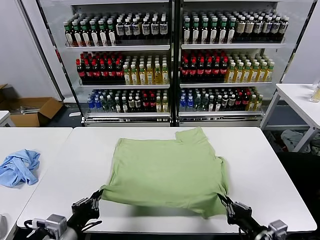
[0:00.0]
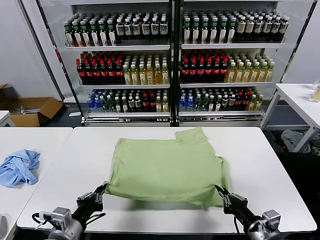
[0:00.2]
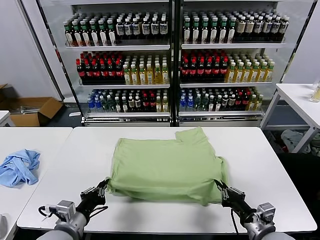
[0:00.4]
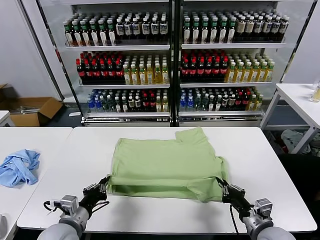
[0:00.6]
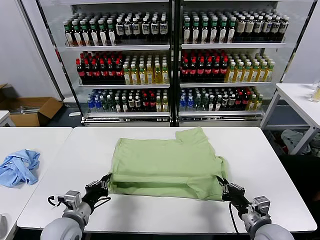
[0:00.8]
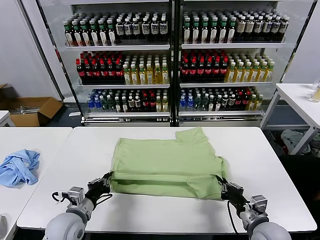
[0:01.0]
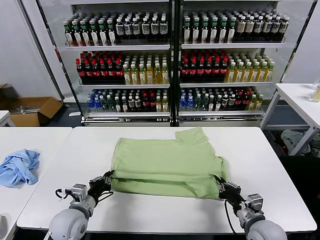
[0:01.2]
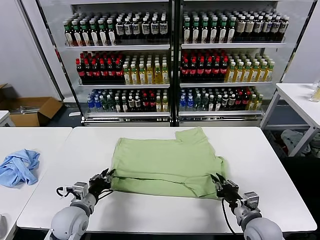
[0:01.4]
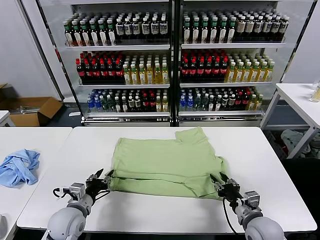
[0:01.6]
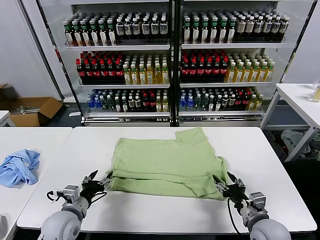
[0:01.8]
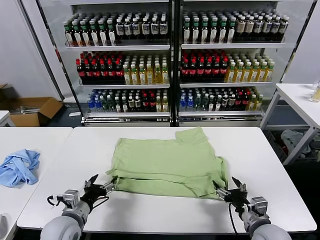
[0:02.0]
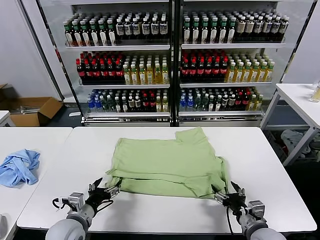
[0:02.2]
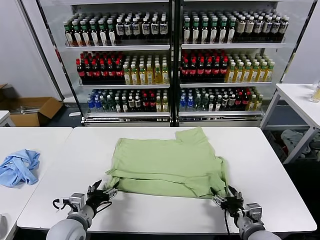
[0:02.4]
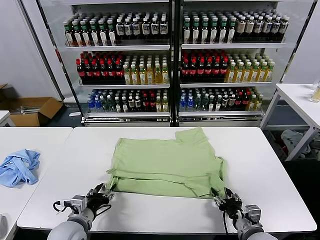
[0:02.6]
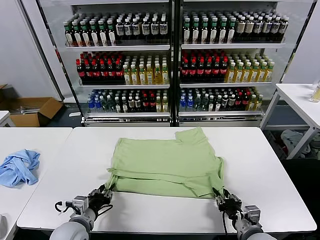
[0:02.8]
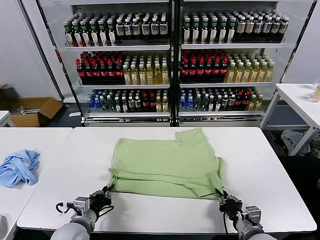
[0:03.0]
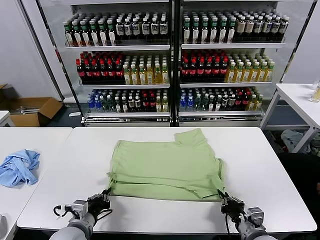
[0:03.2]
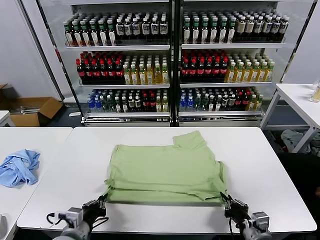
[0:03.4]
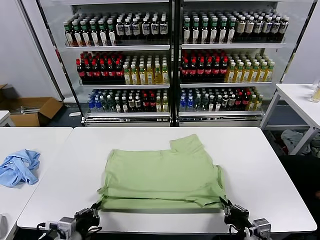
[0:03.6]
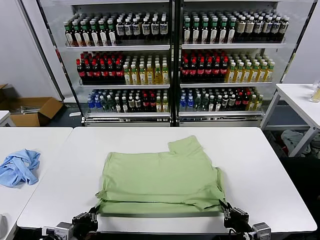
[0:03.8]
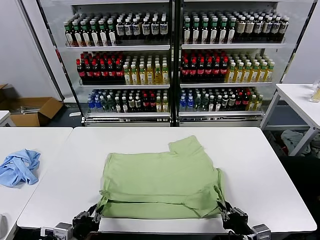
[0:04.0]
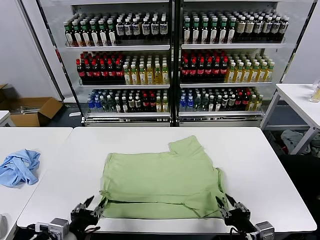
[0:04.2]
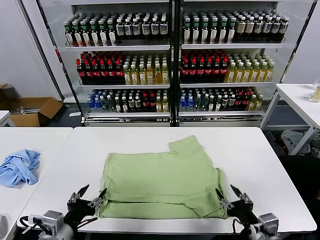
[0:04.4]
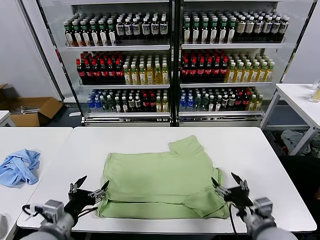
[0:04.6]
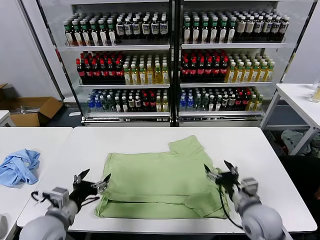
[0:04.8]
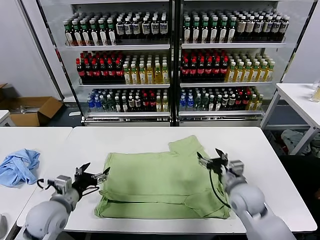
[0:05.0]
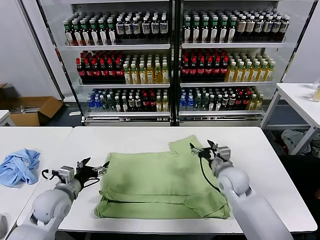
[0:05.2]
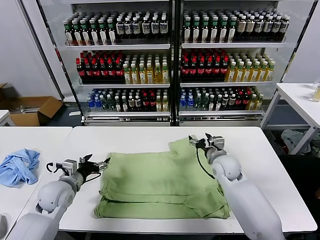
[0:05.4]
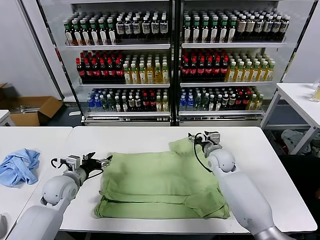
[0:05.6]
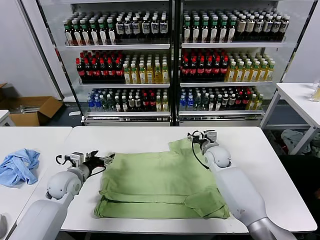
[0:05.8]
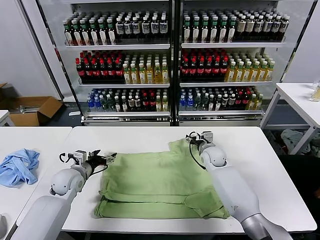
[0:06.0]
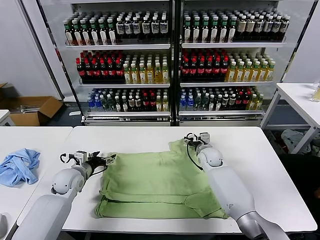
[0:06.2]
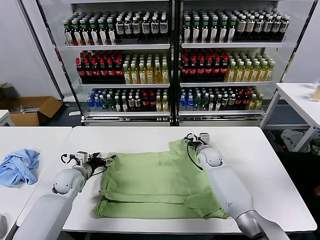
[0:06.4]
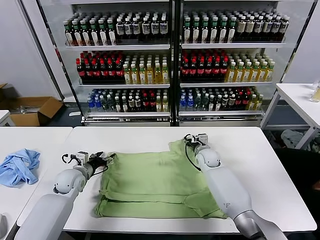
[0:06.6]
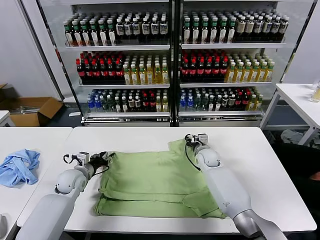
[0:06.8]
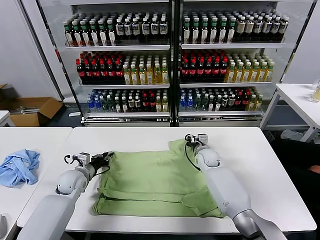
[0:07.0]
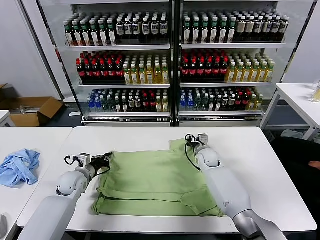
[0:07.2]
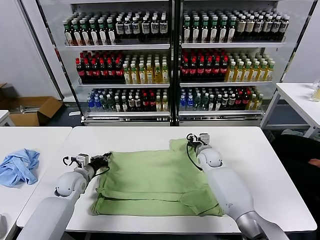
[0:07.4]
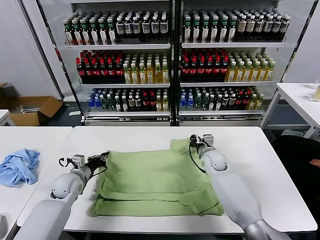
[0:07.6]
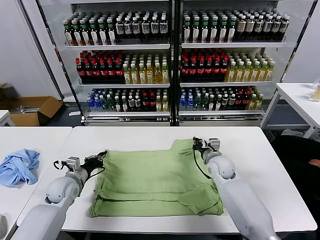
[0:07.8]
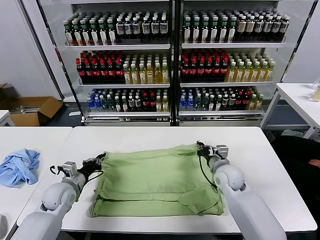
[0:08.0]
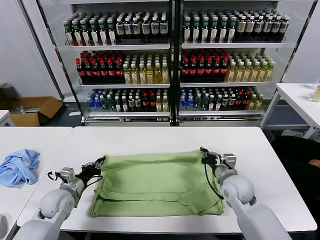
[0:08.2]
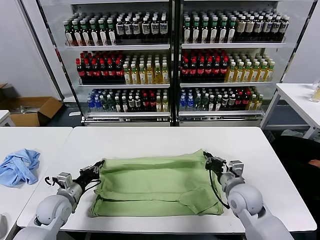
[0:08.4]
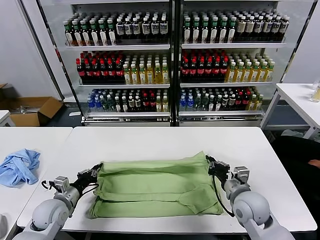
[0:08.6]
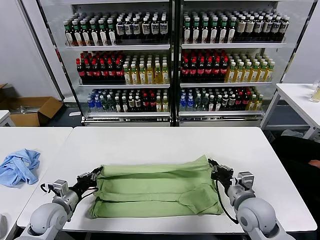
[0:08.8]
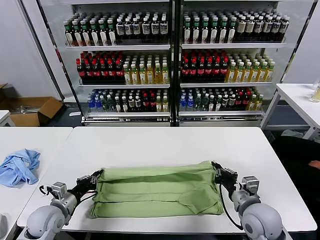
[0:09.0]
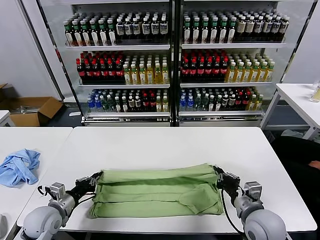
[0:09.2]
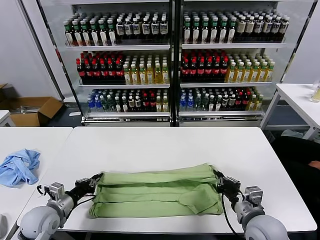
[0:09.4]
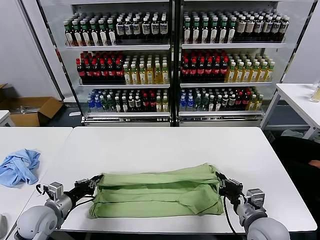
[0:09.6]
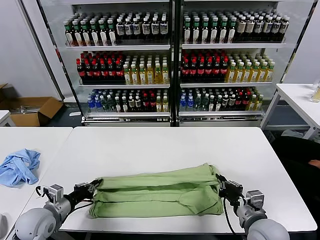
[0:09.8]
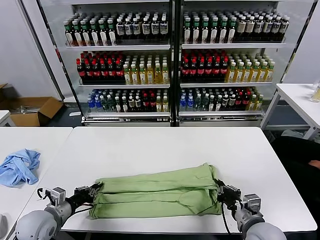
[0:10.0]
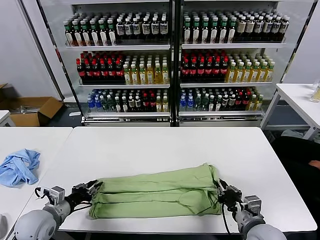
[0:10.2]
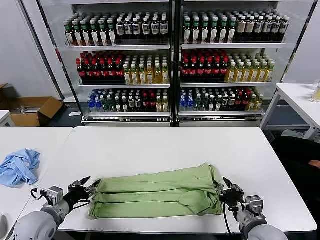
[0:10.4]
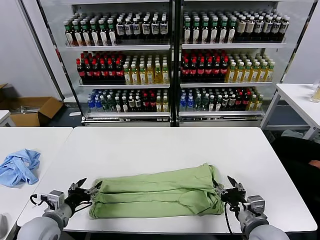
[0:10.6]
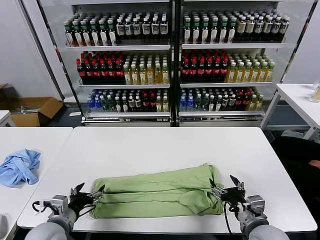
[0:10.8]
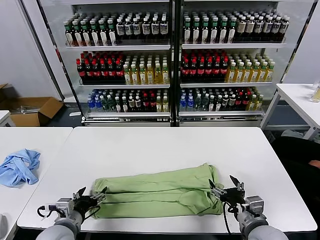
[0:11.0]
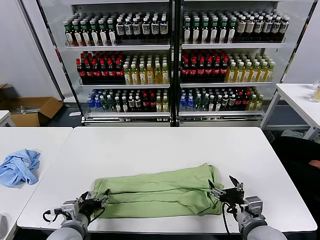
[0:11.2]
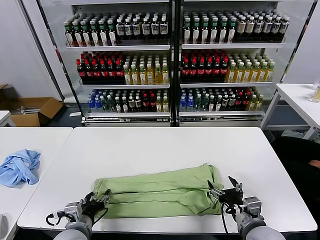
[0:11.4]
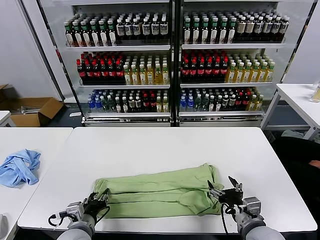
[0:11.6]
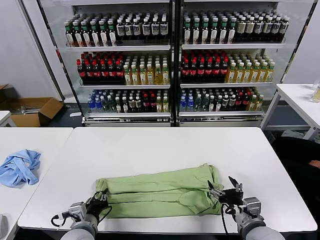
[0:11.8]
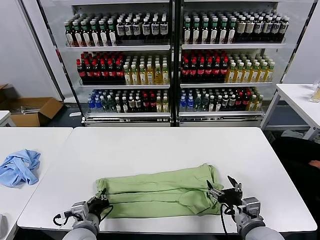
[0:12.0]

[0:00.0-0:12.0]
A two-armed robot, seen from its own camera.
Task of the whole recording: fold and organize the clothes.
Step, 0:00.0 to 0:01.6: use both grippers to drag the lower edge of the fabric forward and fold it over the upper edge.
Step, 0:01.8 to 0:04.2: Drag the clothes downward with both gripper.
Step, 0:04.4 to 0:07.2: use both grippers simultaneously to clamp the upper edge of the clothing fabric.
Step, 0:07.4 to 0:10.4: use both grippers to drag the upper edge of the fabric backward and fold it over the lower edge.
Step, 0:10.6 to 0:12.0: use the left gripper to clamp the left edge of the fabric.
0:00.0 to 0:01.6: The left gripper travels forward and downward by approximately 15 cm, and opens its fingers; the right gripper heads forward, covering some 10 cm, and opens.
0:01.6 to 0:03.0: The right gripper closes up, while the left gripper changes place by approximately 5 cm, and opens, then closes again.
0:03.0 to 0:04.4: The right gripper heads upward, covering about 10 cm, and opens its fingers, while the left gripper shifts some 15 cm upward and backward, and opens.
0:04.4 to 0:06.0: The two grippers go about 30 cm forward.
0:06.0 to 0:07.6: The left gripper closes up; the right gripper closes.
0:07.6 to 0:09.0: The right gripper moves backward, some 25 cm; the left gripper heads backward, covering some 10 cm.
0:09.0 to 0:10.4: The right gripper opens. The left gripper opens its fingers.
0:10.4 to 0:12.0: The left gripper is displaced to the right by roughly 15 cm, and closes its fingers; the right gripper opens.

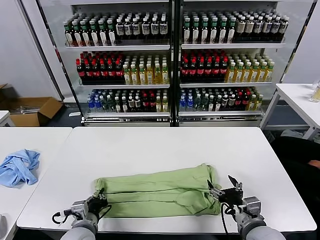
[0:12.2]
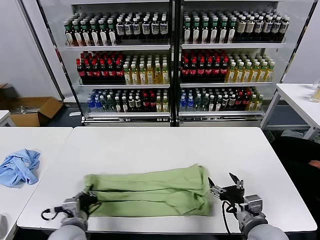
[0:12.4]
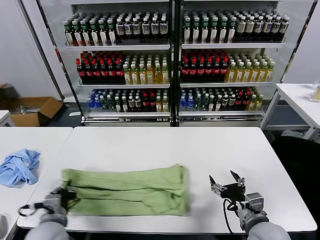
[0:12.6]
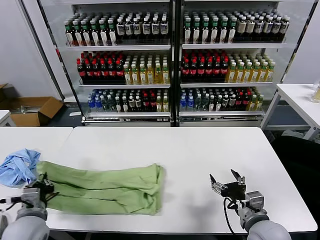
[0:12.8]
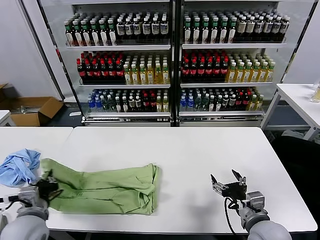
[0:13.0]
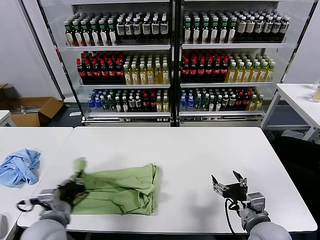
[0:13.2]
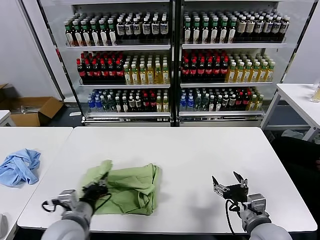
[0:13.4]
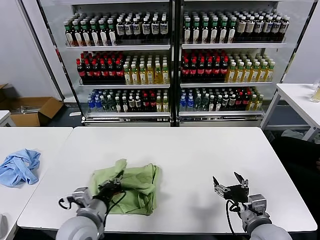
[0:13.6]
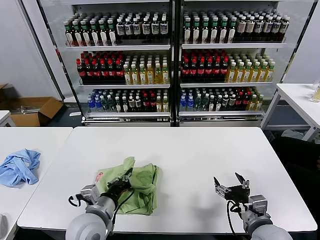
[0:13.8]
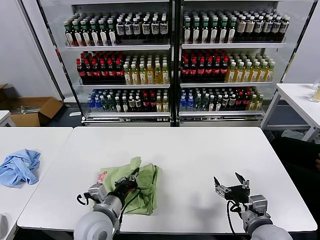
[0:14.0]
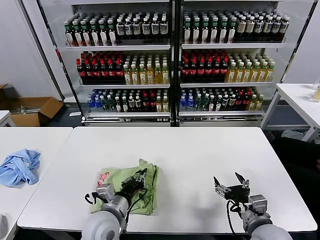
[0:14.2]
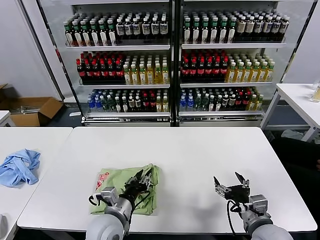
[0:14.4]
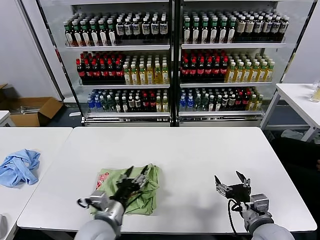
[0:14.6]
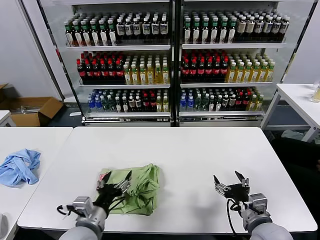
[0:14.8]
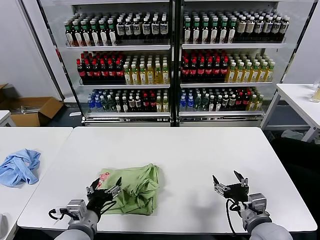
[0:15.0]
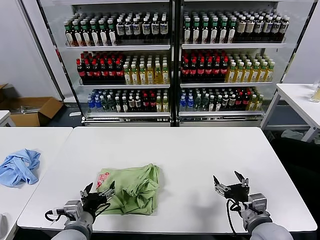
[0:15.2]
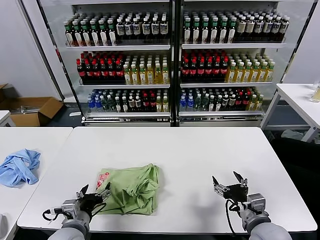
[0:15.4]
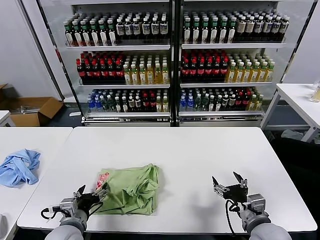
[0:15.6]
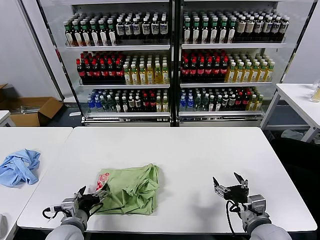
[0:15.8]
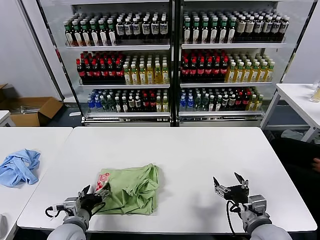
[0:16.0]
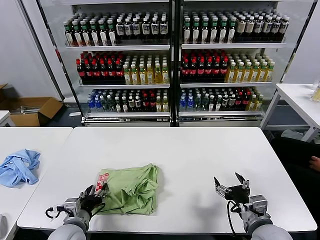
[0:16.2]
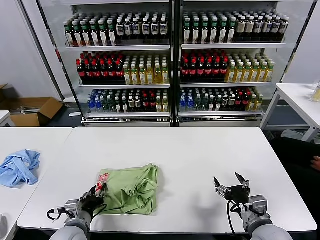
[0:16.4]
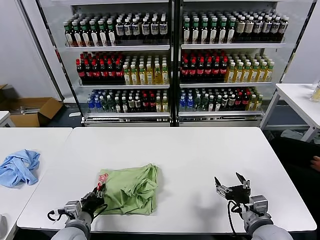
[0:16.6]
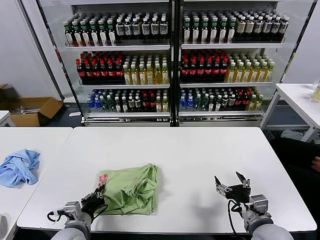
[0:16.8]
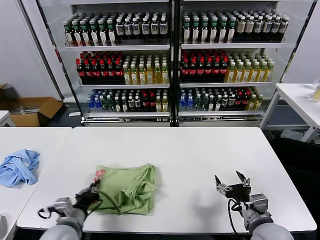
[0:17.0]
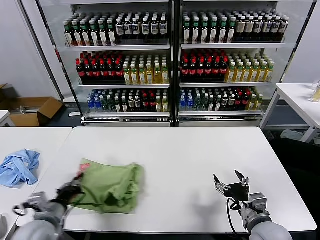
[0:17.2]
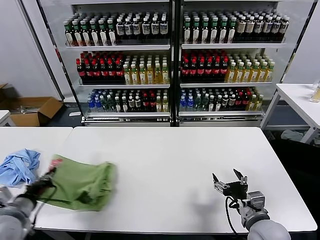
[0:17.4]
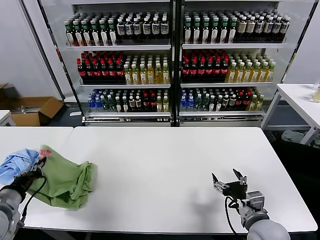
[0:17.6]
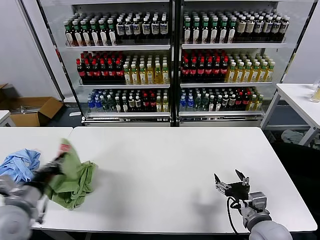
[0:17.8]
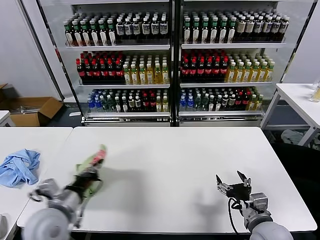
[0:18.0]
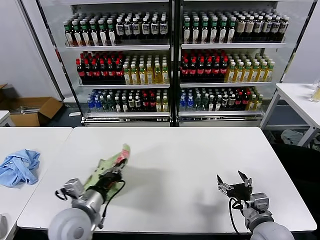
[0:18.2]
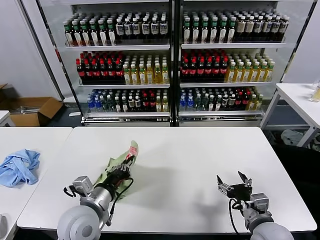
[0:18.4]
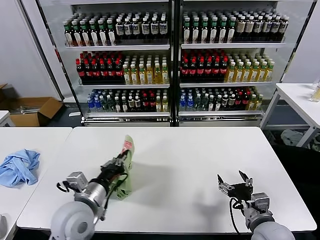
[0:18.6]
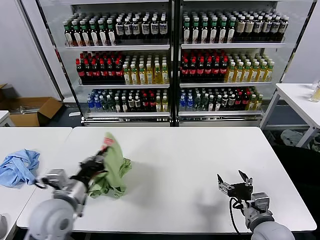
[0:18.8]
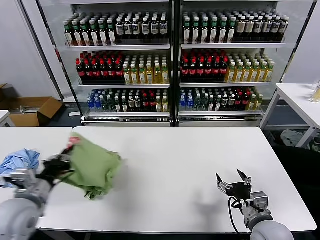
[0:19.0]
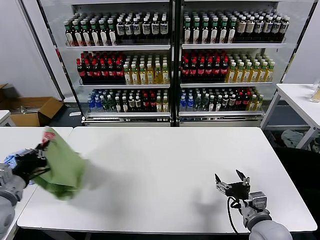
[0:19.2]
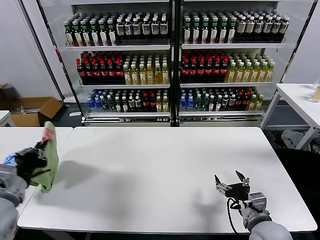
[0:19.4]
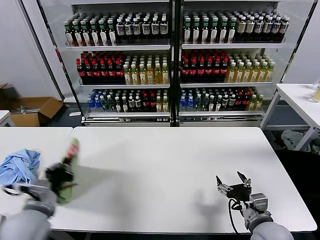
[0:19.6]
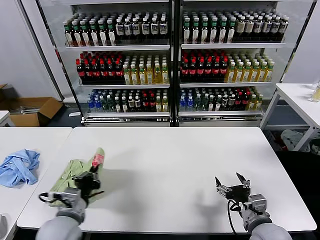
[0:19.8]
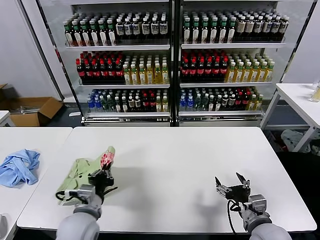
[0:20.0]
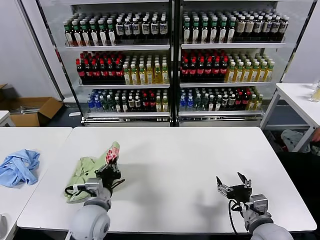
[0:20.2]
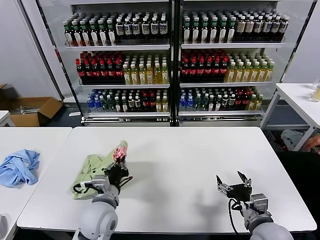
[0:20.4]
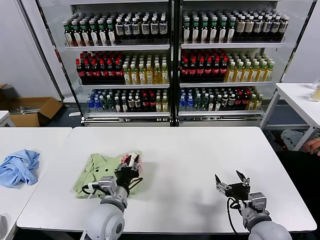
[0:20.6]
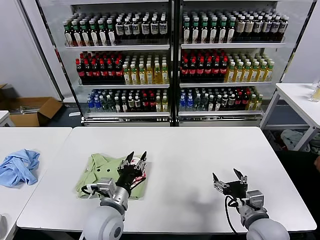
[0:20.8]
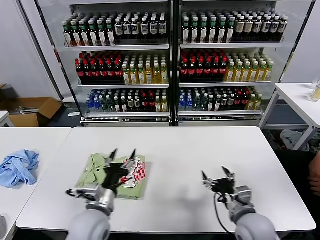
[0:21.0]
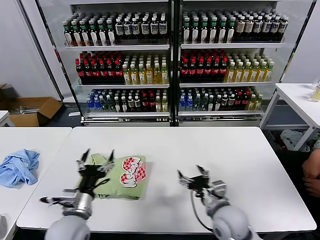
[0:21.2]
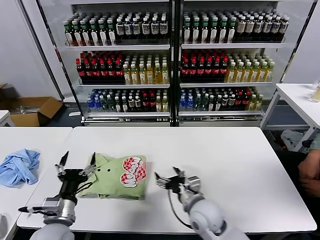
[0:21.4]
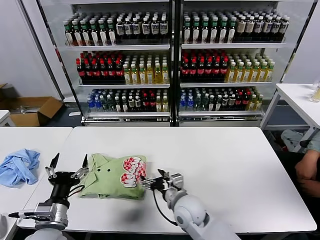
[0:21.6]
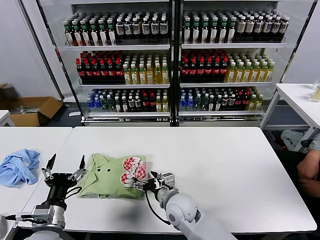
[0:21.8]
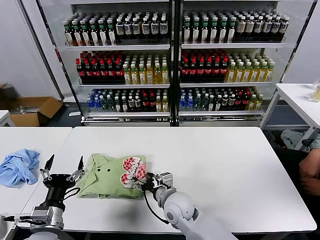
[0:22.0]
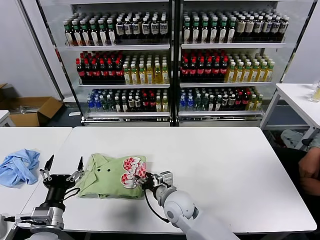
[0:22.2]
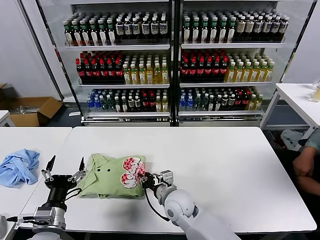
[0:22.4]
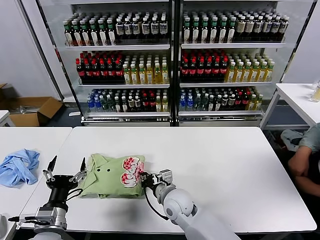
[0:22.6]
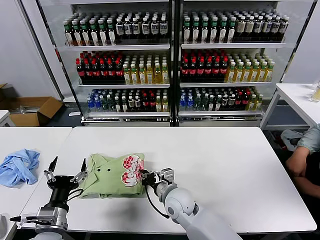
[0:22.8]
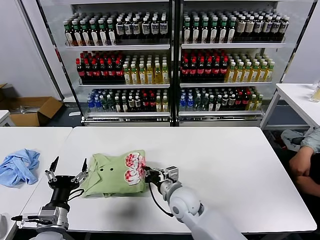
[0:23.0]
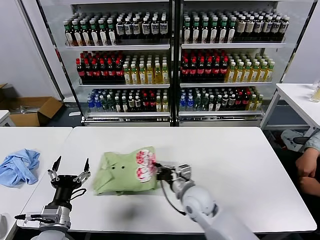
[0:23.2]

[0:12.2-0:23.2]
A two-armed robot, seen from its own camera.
Task of the whole recording: fold and organize the clothes.
Step, 0:12.2 to 0:14.4: use the left gripper to drag the left edge of the fabric to the left and folds it over the right edge.
Step, 0:14.8 to 0:20.6: Flip the folded clothes over with left gripper.
0:12.2 to 0:13.8: The left gripper goes approximately 5 cm upward, and moves roughly 10 cm to the left and comes back.
0:13.8 to 0:15.4: The left gripper shifts approximately 5 cm to the left, and opens its fingers.
0:15.4 to 0:17.0: The left gripper closes up.
0:17.0 to 0:18.4: The left gripper moves upward, approximately 10 cm, and travels to the left and back again, about 15 cm each way.
0:18.4 to 0:20.0: The left gripper goes to the left and returns, about 20 cm each way.
0:20.0 to 0:21.6: The left gripper moves to the left, approximately 5 cm, and opens its fingers. The right gripper goes roughly 20 cm to the left and forward.
0:21.6 to 0:23.2: The right gripper closes up.
